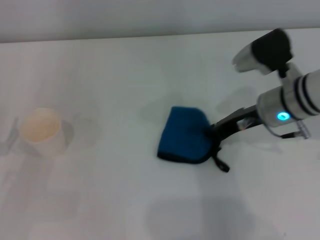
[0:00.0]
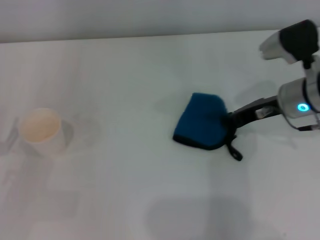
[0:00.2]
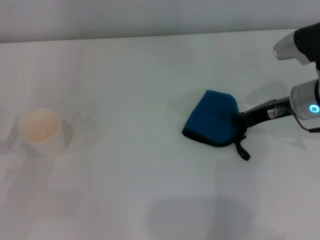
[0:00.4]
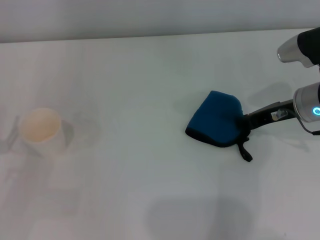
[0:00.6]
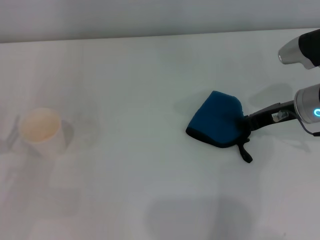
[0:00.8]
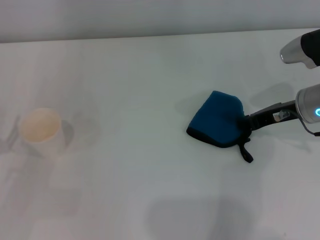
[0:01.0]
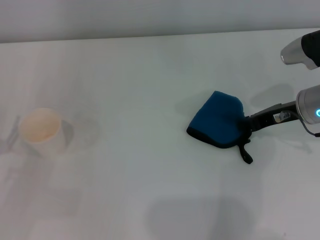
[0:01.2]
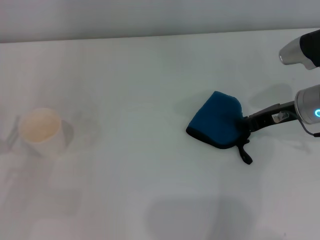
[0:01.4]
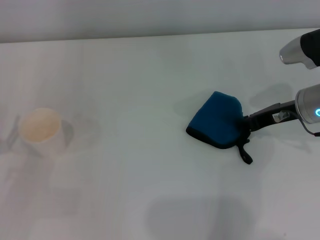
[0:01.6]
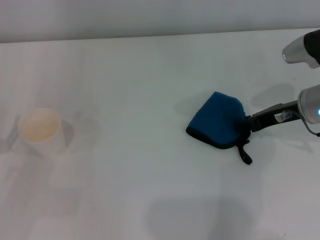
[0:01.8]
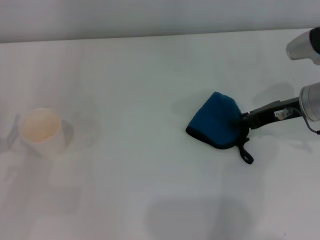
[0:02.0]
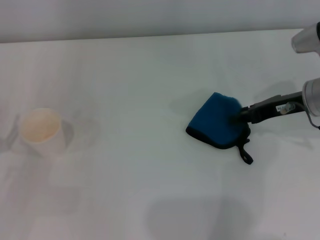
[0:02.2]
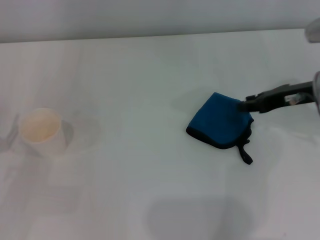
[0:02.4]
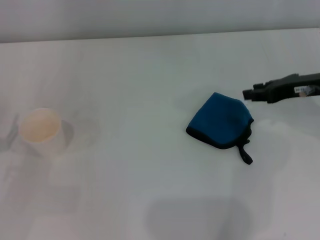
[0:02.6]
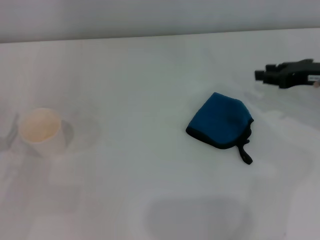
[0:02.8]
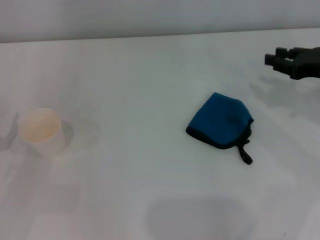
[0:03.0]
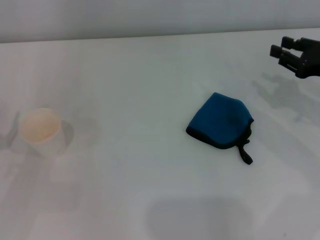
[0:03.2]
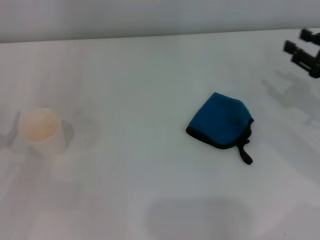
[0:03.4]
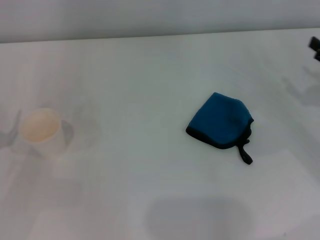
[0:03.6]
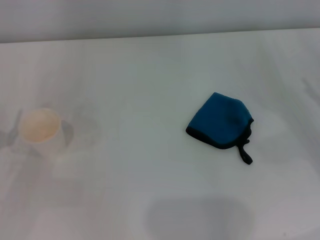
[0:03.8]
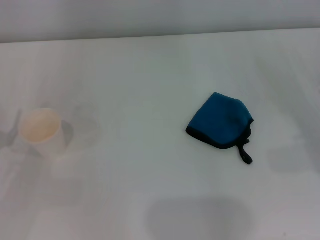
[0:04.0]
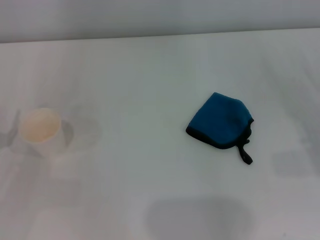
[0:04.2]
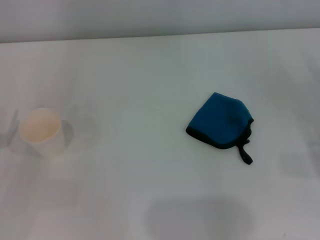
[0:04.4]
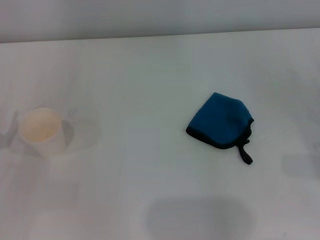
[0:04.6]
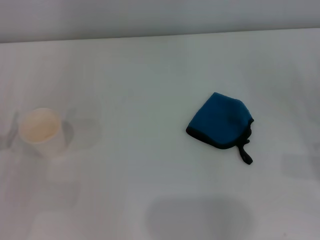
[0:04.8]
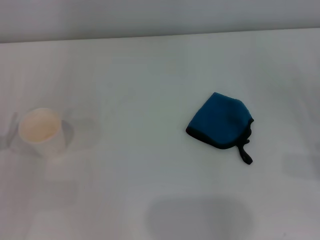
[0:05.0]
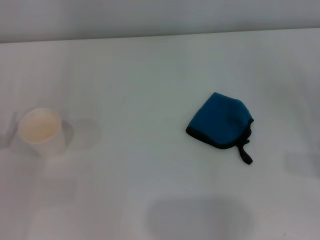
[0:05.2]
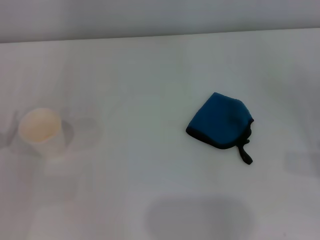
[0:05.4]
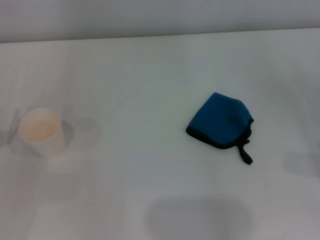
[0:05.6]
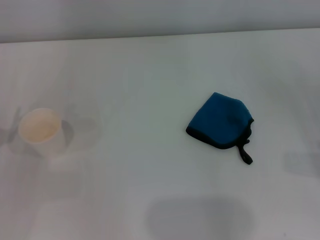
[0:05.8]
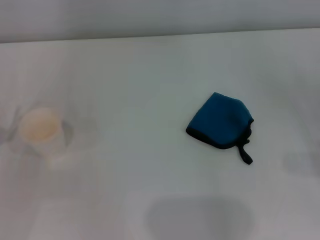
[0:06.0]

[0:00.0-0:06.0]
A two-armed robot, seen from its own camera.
Step, 0:01.6 to 0:02.2: Place the rag on the table with the right gripper.
0:00.0 to 0:01.6: The right gripper travels to the right by approximately 5 cm.
0:01.6 to 0:03.0: The right gripper moves to the right, approximately 5 cm.
0:03.0 to 0:04.4: The right gripper is displaced backward, downward and to the right by about 15 cm, and opens its fingers.

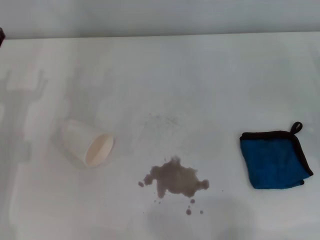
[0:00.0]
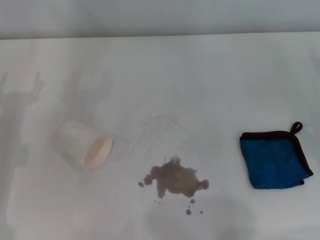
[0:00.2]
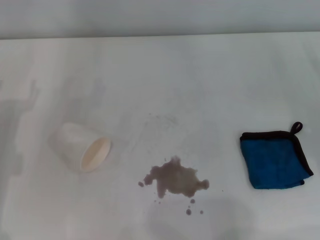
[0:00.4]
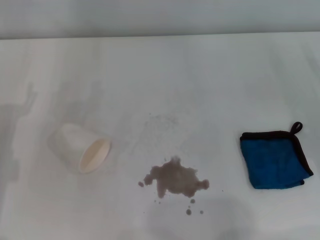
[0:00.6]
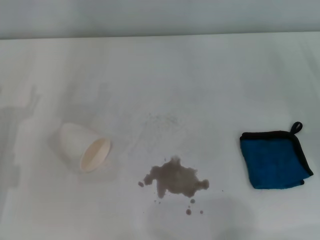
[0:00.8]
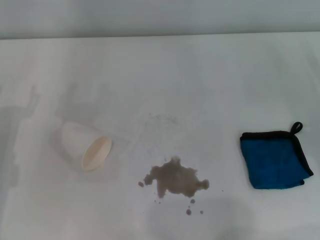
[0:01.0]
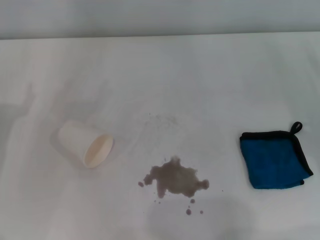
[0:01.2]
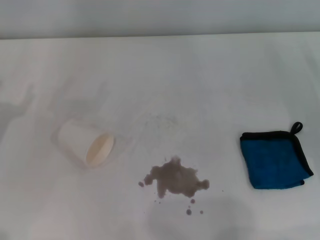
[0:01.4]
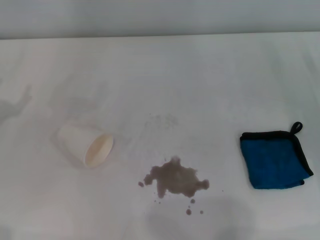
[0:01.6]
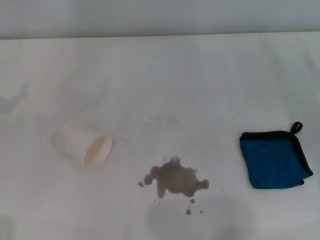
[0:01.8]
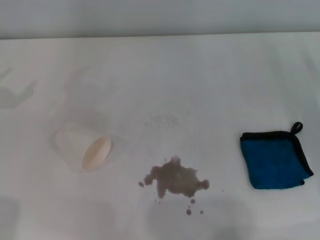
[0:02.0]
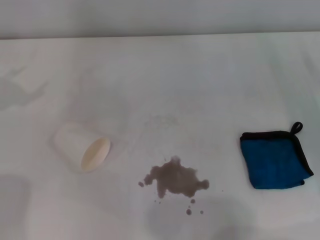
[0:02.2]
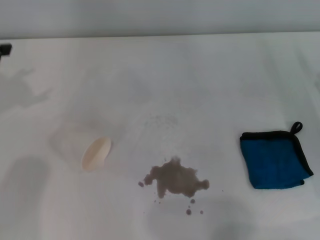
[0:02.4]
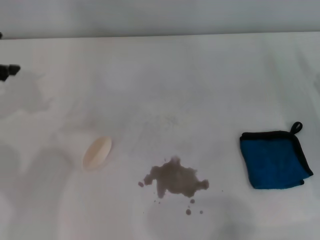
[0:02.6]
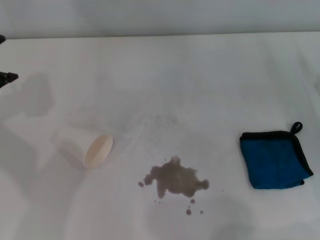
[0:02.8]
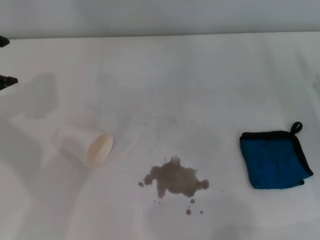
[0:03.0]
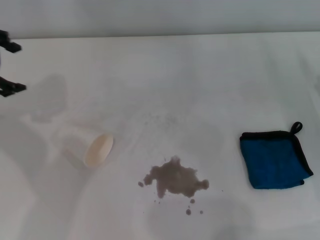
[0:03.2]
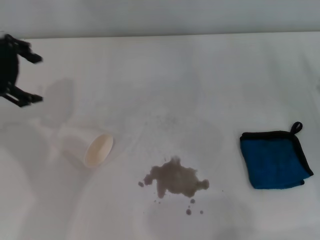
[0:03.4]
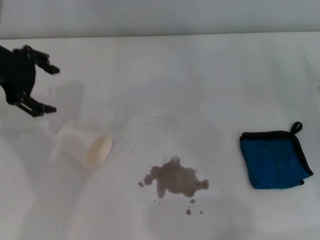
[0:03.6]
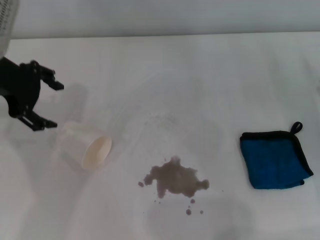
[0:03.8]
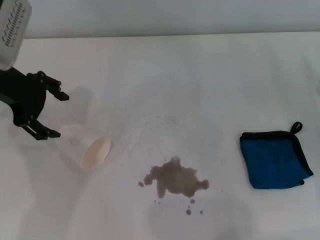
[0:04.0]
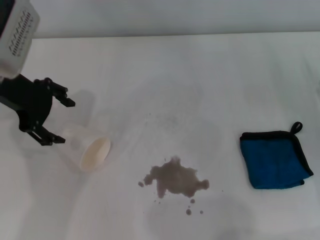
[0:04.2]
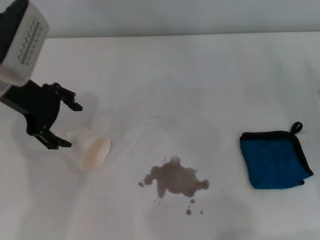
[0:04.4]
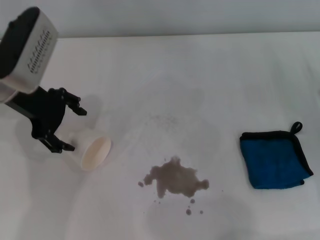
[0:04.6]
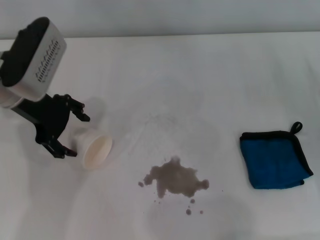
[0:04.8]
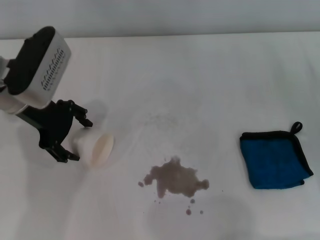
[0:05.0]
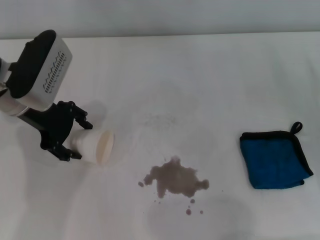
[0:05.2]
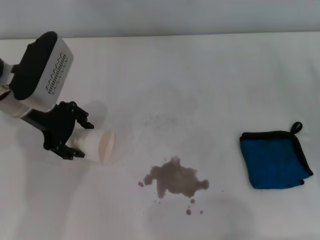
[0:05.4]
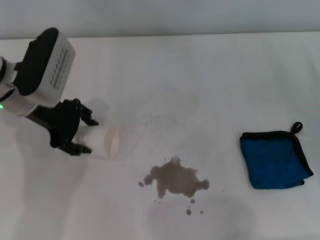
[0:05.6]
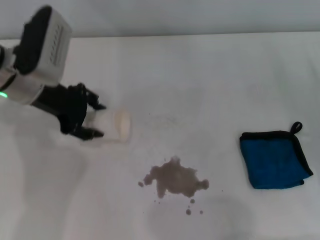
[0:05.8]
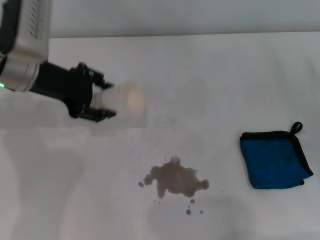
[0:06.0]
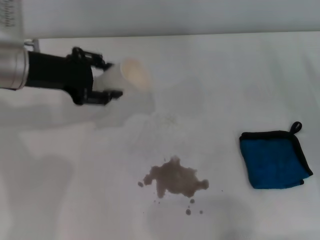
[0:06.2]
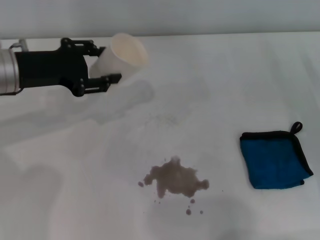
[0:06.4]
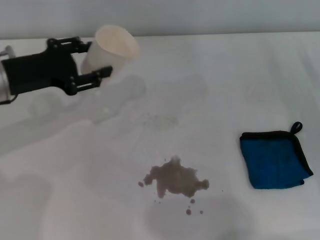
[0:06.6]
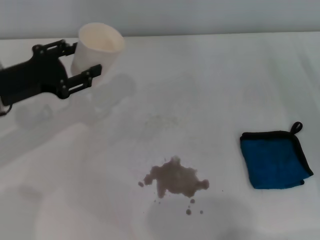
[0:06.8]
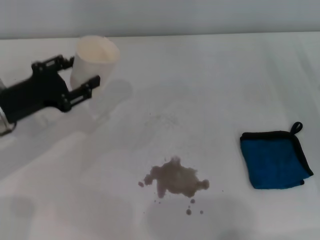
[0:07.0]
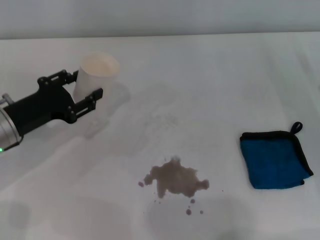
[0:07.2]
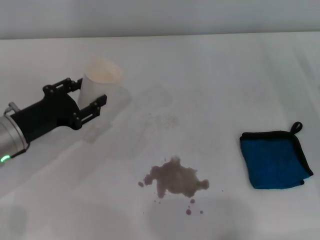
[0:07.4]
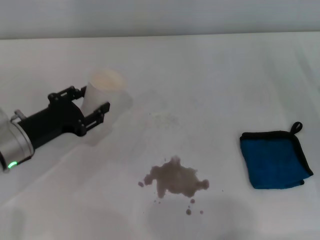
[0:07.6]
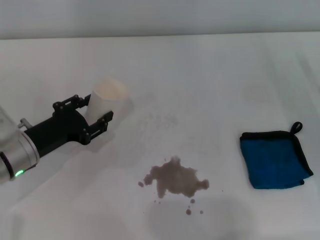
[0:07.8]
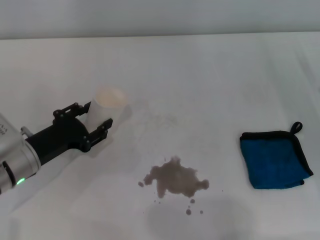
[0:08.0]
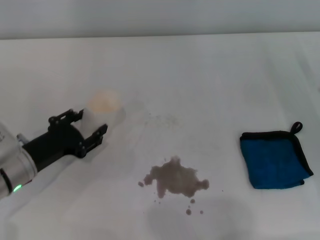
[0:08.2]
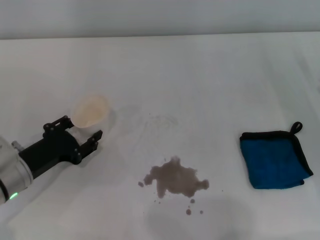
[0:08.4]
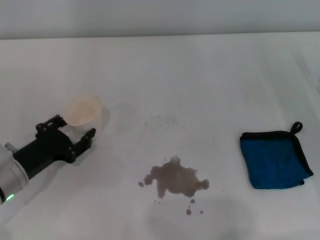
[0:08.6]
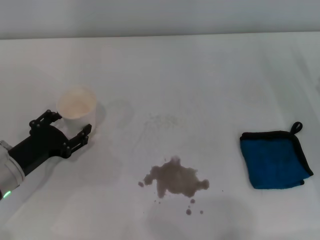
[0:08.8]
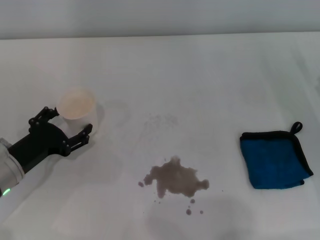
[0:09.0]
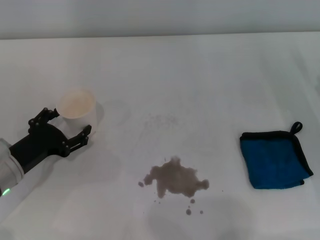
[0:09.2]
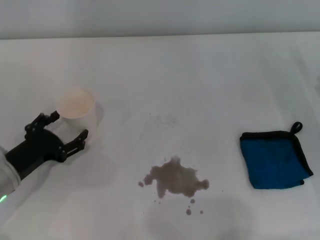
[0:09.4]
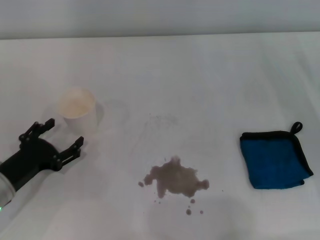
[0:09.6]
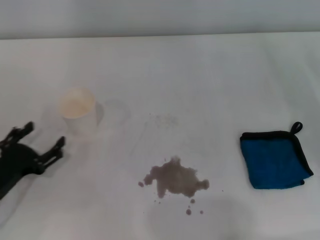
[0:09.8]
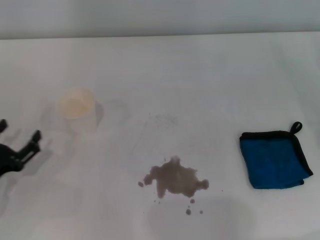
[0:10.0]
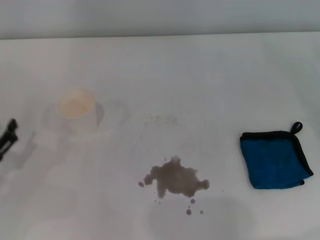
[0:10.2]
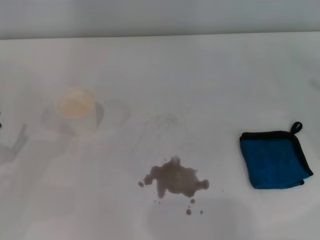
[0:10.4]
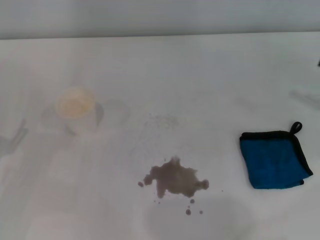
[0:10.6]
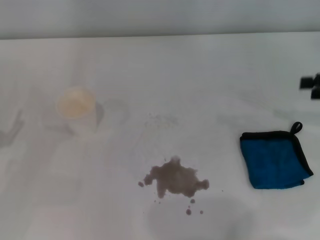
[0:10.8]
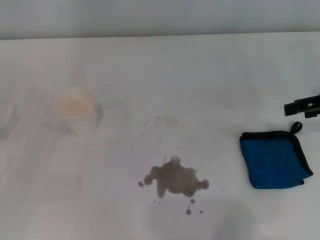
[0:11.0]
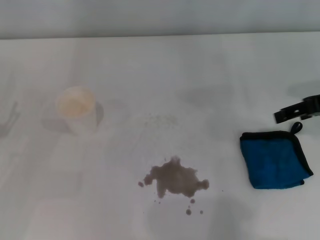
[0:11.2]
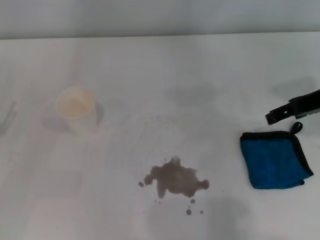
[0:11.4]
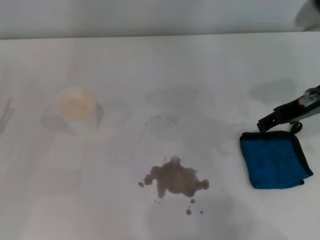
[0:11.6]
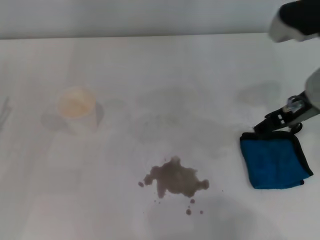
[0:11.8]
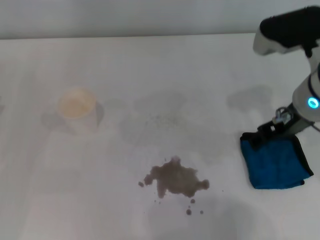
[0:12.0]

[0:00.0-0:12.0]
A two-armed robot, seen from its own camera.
Step, 0:00.0 to 0:05.4: Grasp the paper cup with the left gripper.
Step, 0:05.6 to 0:09.2: Stand the paper cup upright with the left gripper.
0:03.0 to 0:04.4: The left gripper shifts roughly 10 cm to the right and downward.
0:04.4 to 0:06.0: The left gripper closes.
0:06.0 to 0:07.6: The left gripper goes roughly 15 cm downward and backward.
0:07.6 to 0:09.0: The left gripper ends up roughly 5 cm from where it was, and opens its fingers.
0:09.0 to 0:10.4: The left gripper goes roughly 10 cm to the left and backward, and opens its fingers.
0:10.4 to 0:12.0: The right gripper shifts about 25 cm to the left.

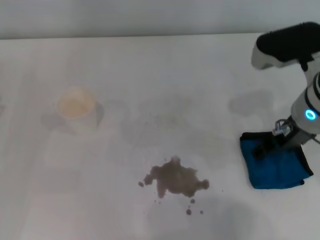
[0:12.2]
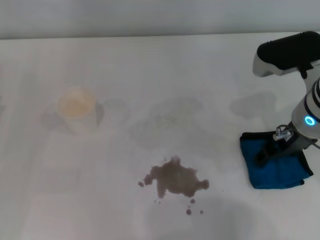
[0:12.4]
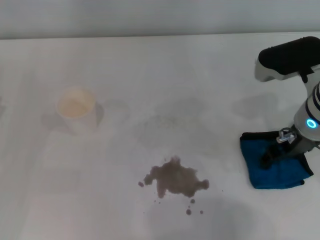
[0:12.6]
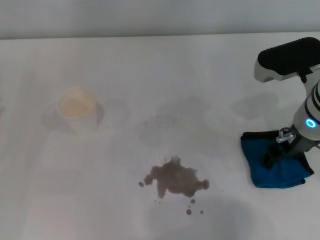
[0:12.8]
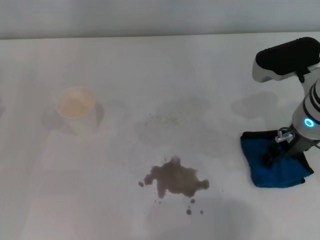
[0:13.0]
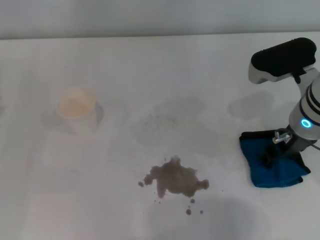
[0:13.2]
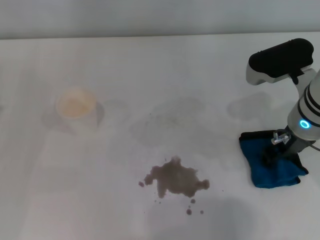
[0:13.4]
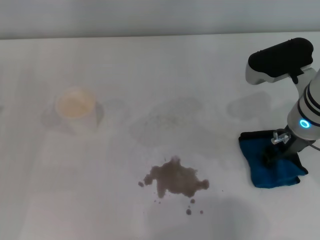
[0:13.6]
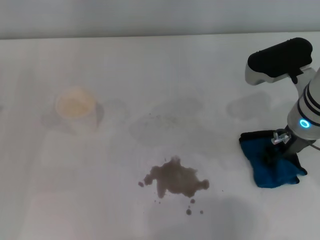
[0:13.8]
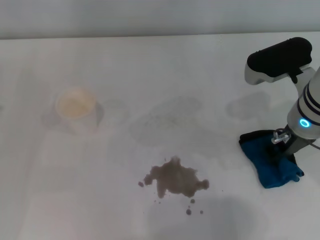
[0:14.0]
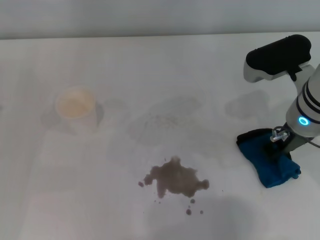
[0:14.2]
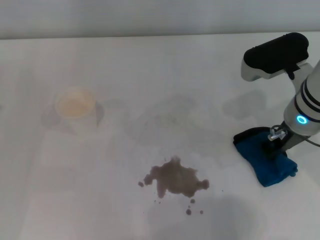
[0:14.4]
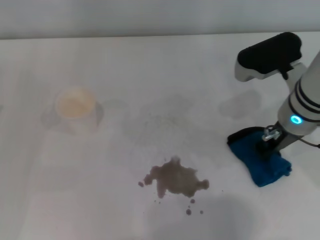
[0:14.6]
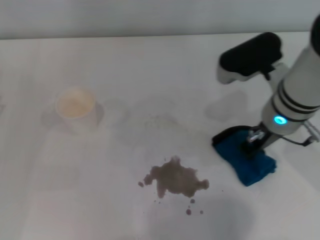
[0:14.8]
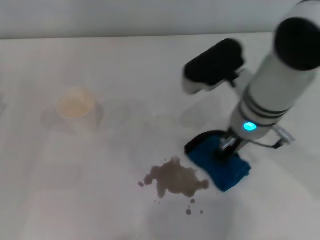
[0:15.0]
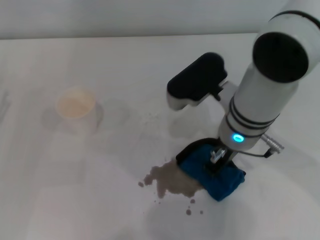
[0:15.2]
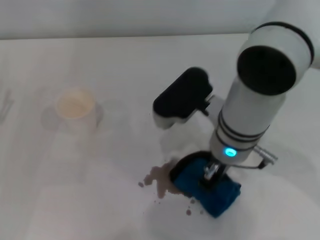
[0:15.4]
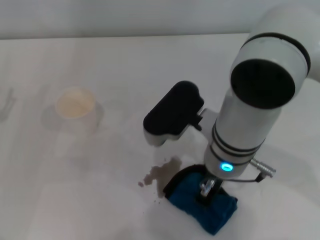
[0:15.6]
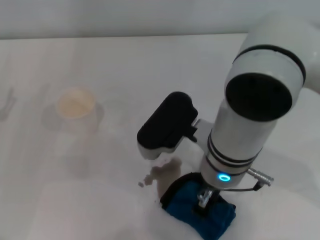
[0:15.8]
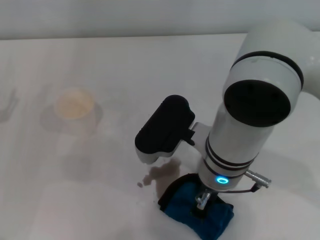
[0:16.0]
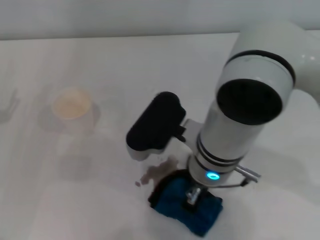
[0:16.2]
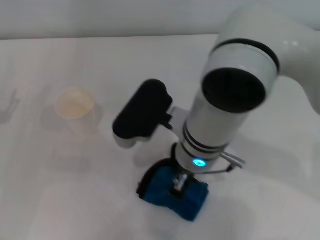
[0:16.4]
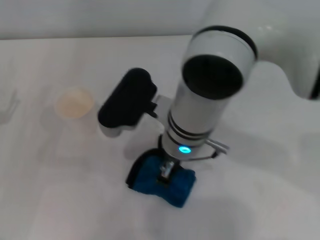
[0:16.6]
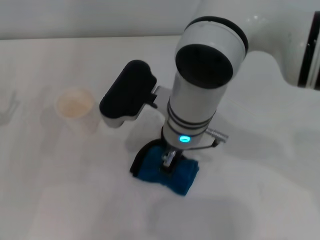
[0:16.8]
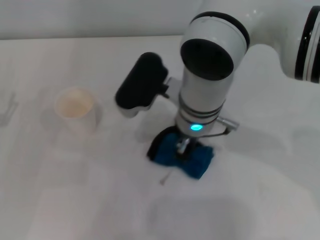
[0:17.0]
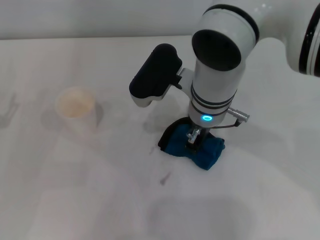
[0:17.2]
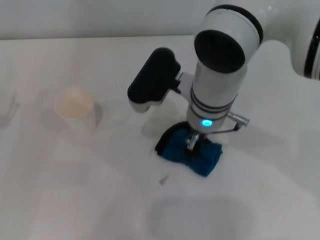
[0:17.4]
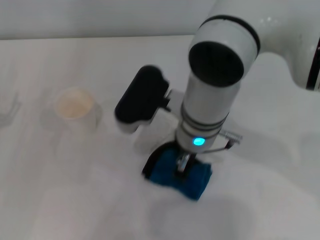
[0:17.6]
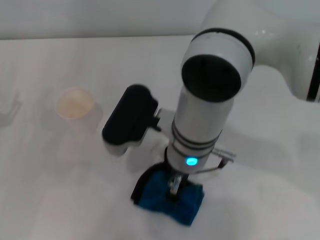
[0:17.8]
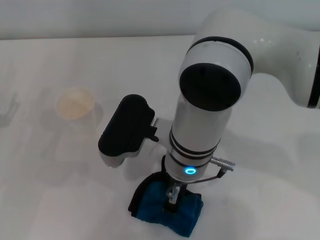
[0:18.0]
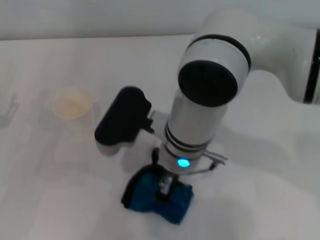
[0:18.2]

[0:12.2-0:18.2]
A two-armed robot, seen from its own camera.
Step, 0:12.2 to 0:14.2: Grasp the rag with the right gripper.
0:12.2 to 0:13.8: The right gripper closes.
0:13.8 to 0:15.2: The right gripper shifts about 10 cm to the left, and closes its fingers.
0:15.2 to 0:16.6: The right gripper travels to the left by roughly 10 cm.
